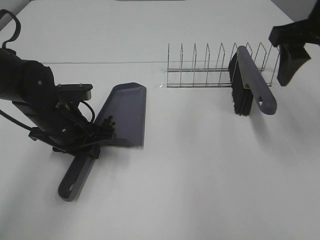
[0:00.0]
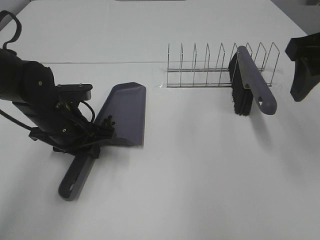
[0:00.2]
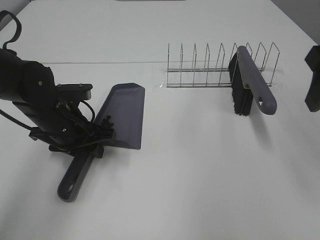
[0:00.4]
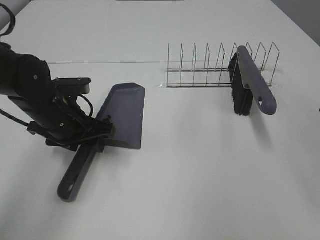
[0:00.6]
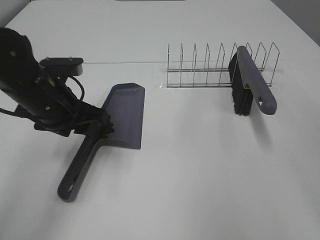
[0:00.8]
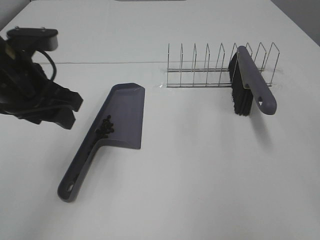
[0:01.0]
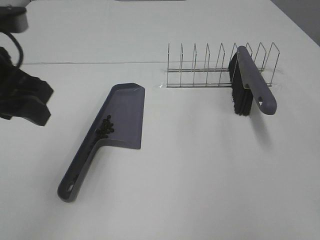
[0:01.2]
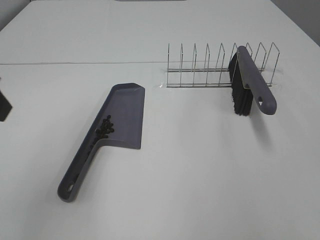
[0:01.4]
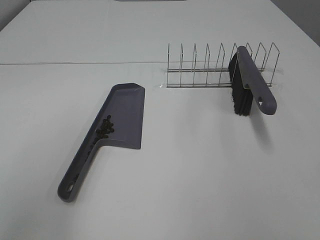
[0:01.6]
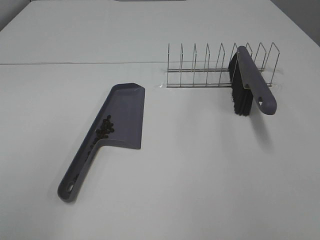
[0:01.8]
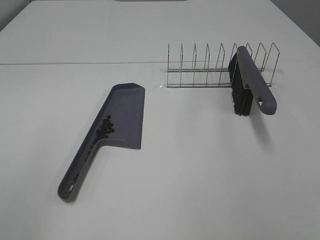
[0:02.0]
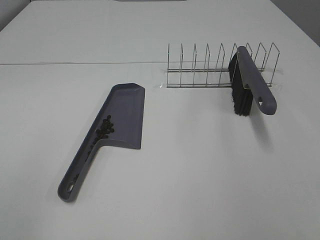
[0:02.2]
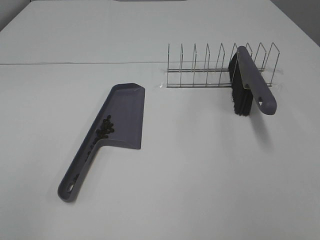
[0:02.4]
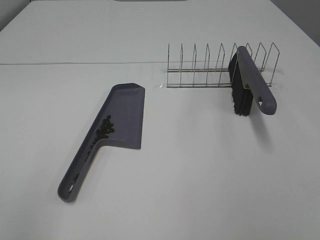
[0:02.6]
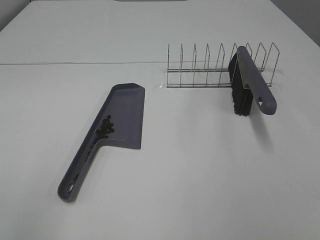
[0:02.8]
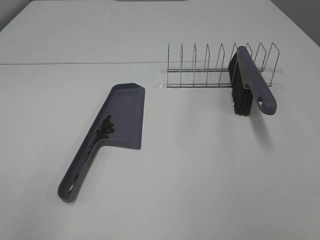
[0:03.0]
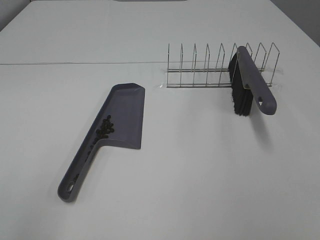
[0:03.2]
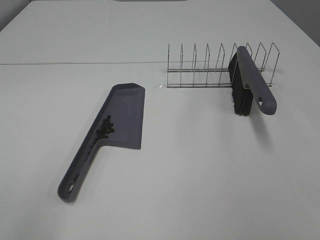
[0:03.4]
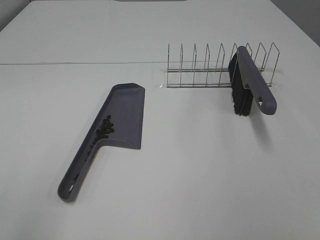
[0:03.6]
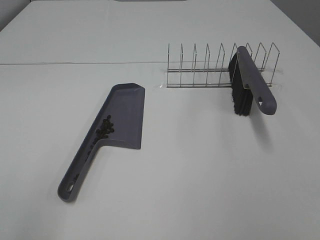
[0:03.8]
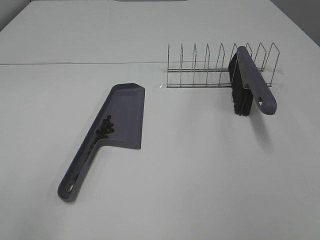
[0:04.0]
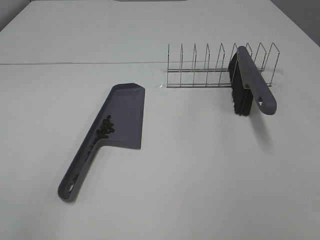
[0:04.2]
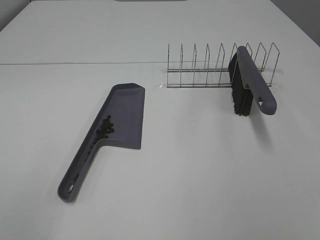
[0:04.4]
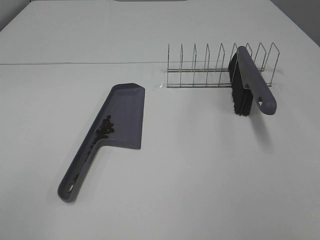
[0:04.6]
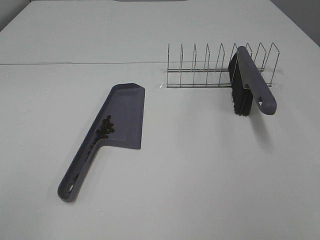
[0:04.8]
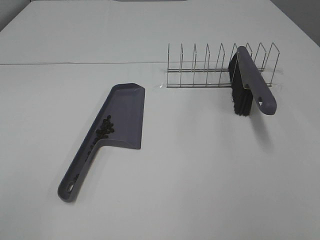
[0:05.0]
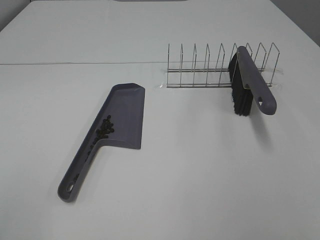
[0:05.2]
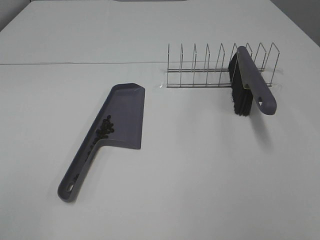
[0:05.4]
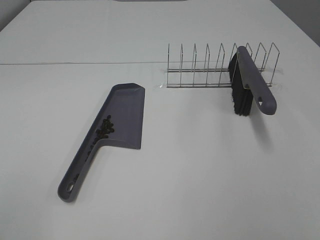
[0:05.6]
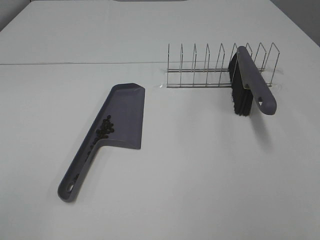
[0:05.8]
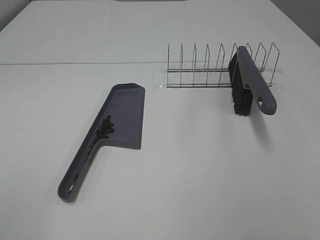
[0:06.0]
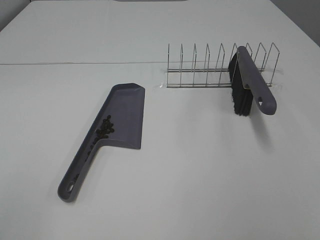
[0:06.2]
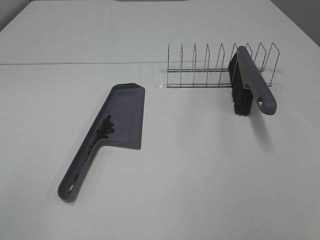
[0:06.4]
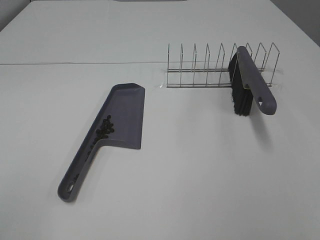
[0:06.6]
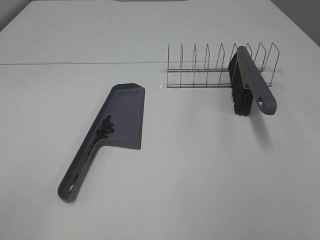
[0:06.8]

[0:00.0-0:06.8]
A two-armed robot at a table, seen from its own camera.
Task of the whole recording: Sweep Coffee Bean.
0.0 to 1.4 s: The left gripper goes about 25 cm upward and backward, and opens; the right gripper heads backward, covering roughly 25 cm.
5.4 to 6.8 s: Neither gripper changes place.

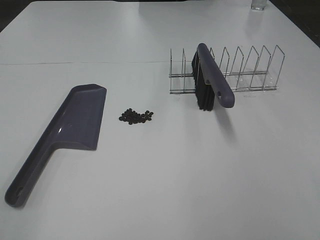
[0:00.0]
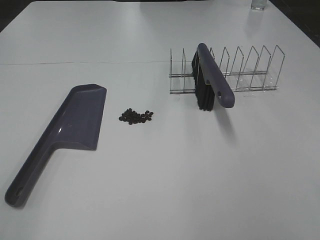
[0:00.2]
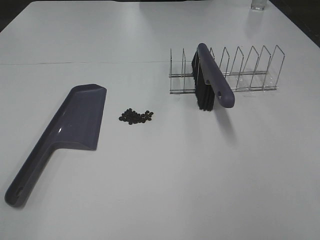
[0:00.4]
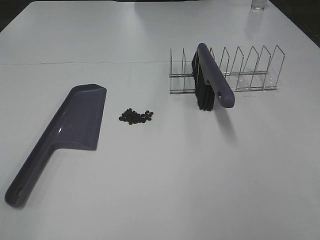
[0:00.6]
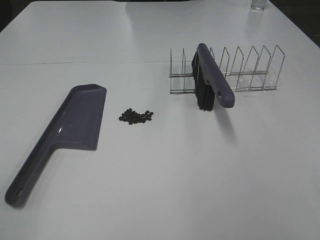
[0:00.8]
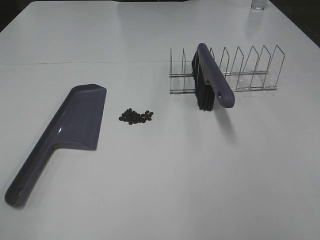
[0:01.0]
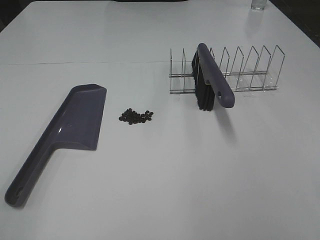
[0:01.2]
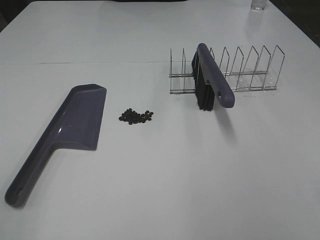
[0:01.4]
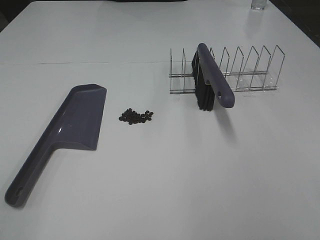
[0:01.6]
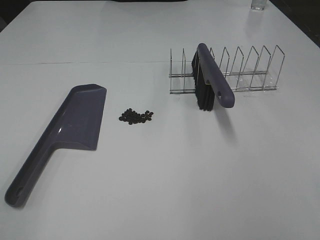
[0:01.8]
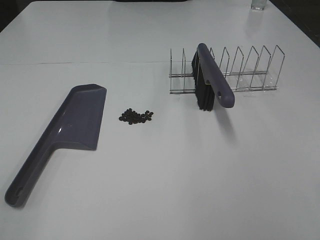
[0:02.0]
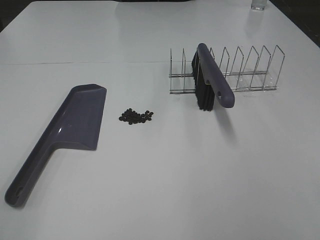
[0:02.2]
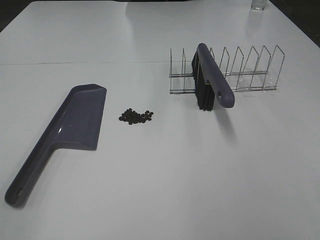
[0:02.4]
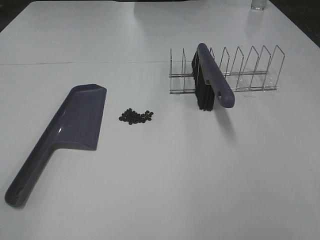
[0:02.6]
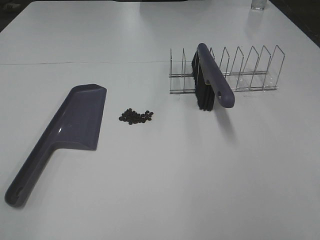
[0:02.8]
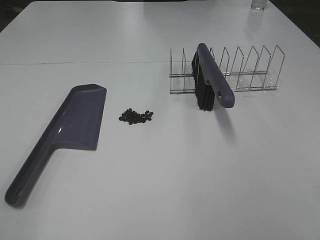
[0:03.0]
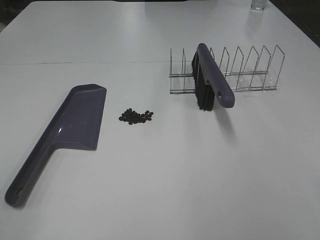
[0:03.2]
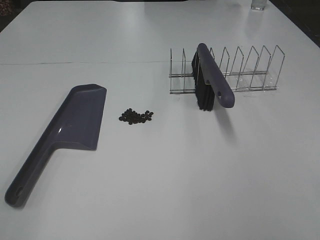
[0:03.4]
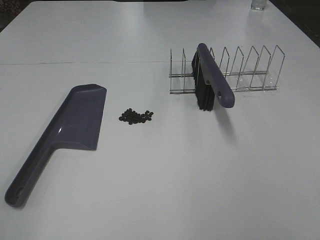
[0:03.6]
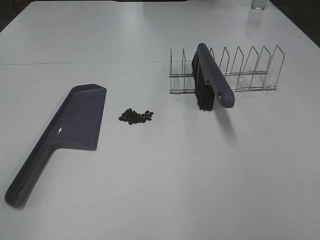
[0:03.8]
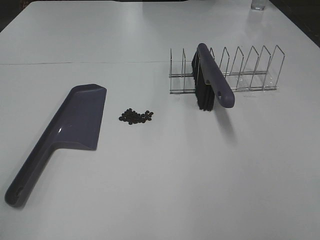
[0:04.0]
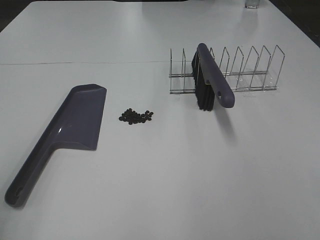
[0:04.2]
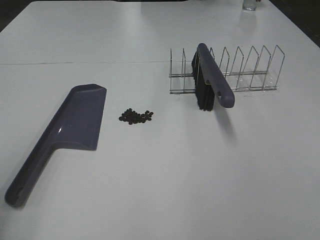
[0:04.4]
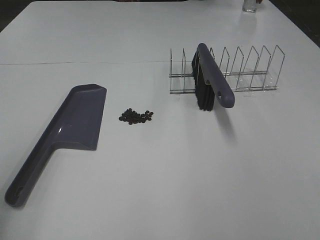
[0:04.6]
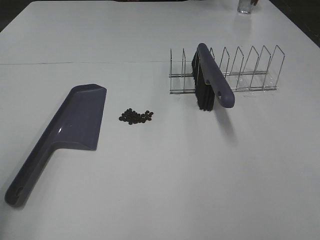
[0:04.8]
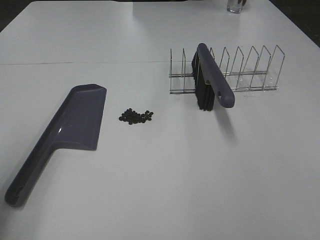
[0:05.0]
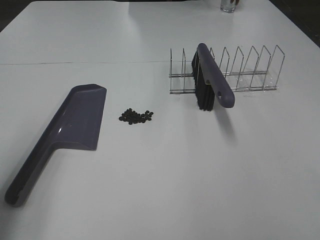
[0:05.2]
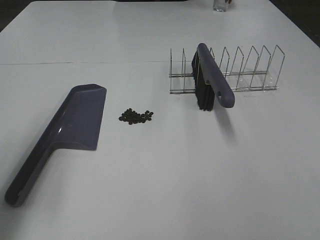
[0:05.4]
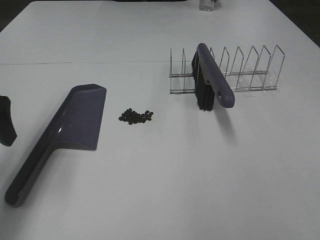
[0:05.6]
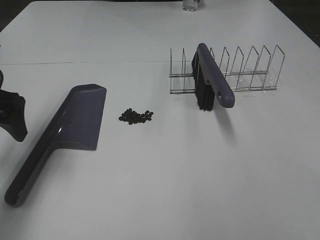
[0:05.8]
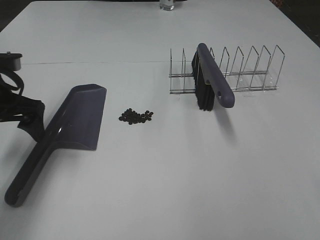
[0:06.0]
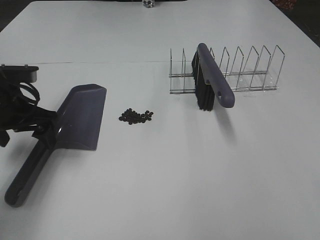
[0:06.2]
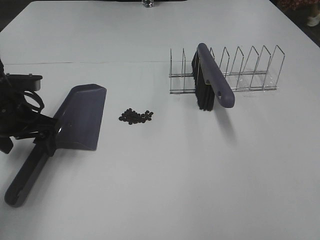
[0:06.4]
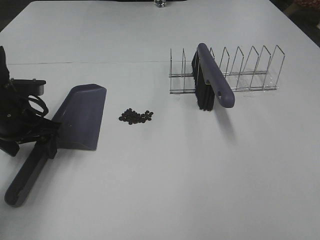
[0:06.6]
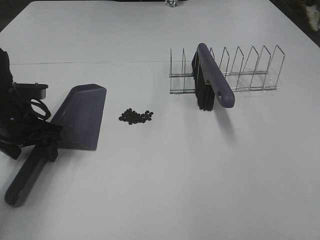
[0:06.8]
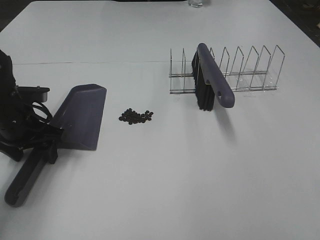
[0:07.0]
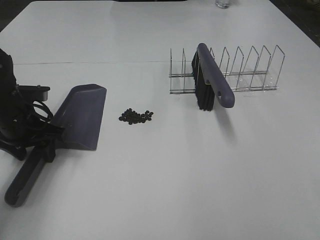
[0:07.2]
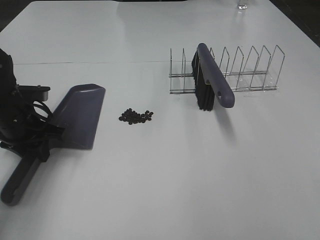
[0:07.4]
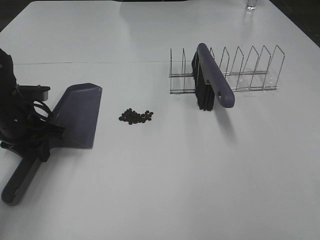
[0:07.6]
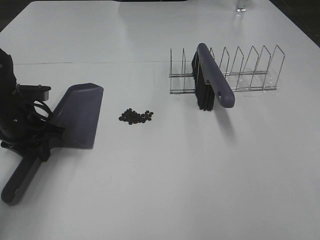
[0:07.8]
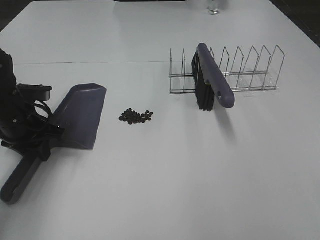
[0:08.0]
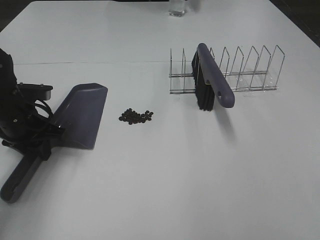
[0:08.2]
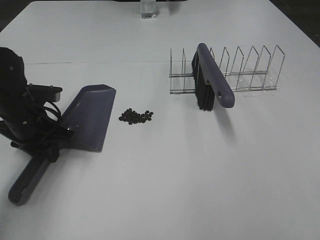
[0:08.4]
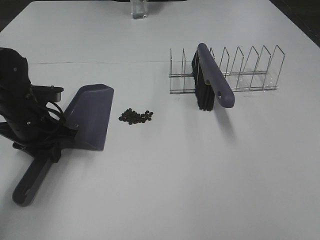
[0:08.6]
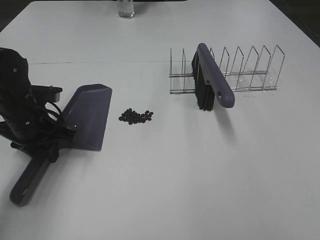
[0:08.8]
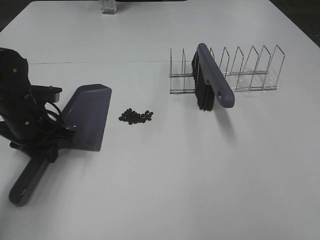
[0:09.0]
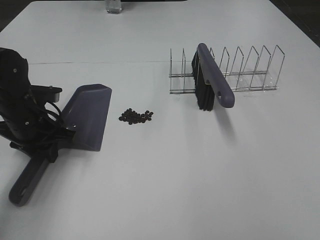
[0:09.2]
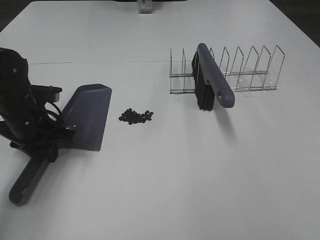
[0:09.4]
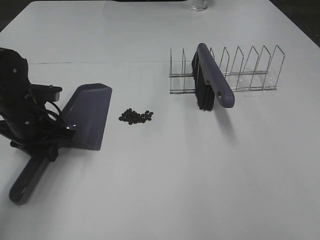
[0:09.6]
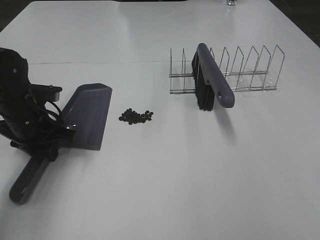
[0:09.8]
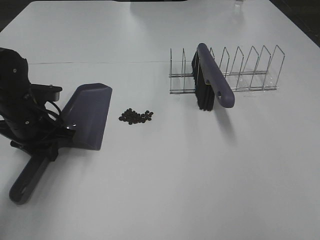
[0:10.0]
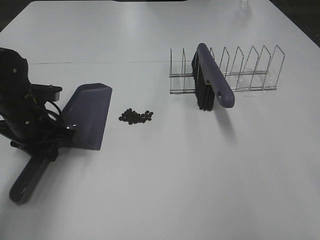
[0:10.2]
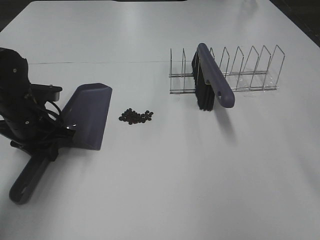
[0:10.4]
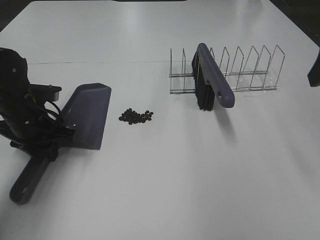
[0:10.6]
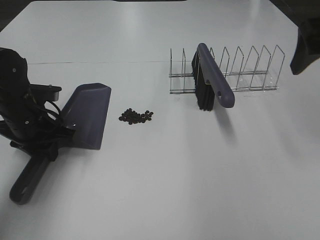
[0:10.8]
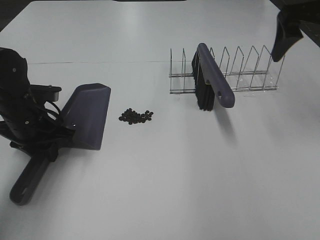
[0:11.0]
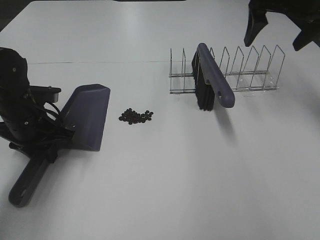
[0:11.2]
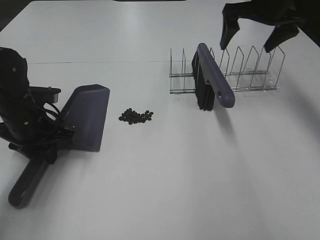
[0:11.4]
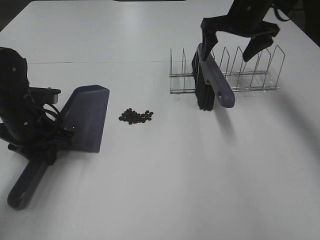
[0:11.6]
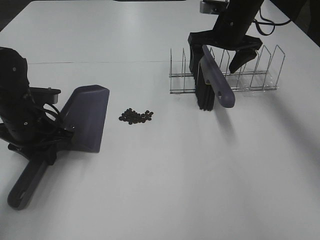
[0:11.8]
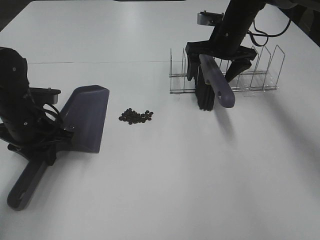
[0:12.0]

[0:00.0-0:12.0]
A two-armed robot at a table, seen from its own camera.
Task of the whole recording: Sweep Coffee Bean.
Step, 0.0 to 7.4 s: Left hand: grab the dustpan.
0.0 to 3.0 s: Neither gripper changes place.
4.4 to 6.0 s: The left gripper moves forward and downward, approximately 25 cm.
6.0 to 7.6 s: The left gripper travels downward by approximately 10 cm, and closes its fingers.
7.6 to 9.0 s: There are only small adjustments of the grippers.
9.0 to 10.4 s: The right gripper shifts about 20 cm forward.
10.4 to 12.0 s: The right gripper goes about 35 cm forward and downward.

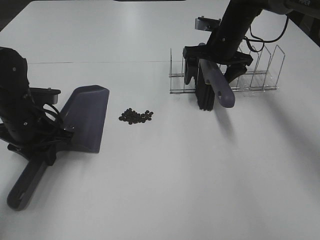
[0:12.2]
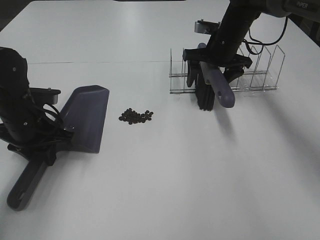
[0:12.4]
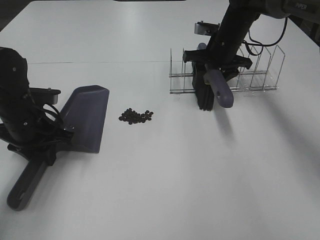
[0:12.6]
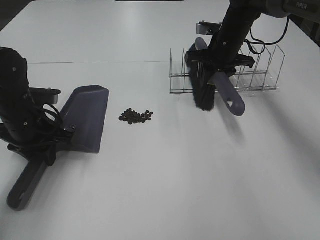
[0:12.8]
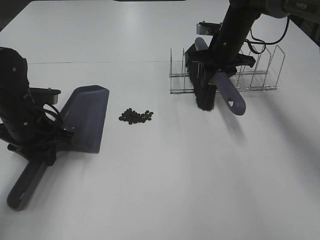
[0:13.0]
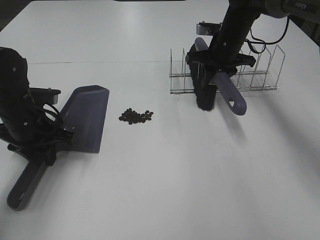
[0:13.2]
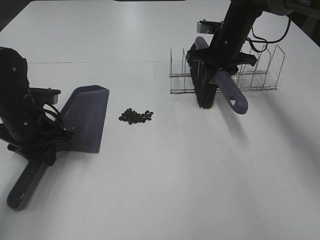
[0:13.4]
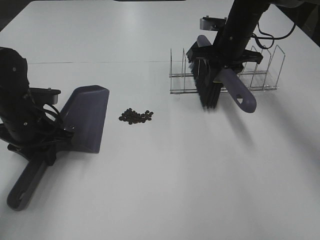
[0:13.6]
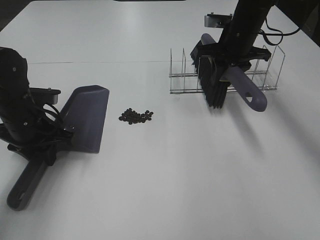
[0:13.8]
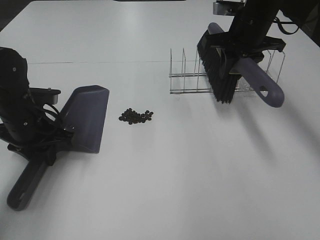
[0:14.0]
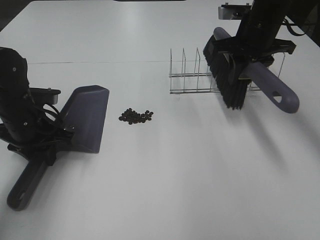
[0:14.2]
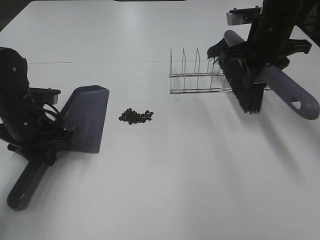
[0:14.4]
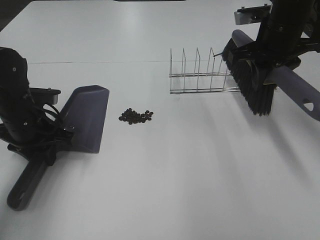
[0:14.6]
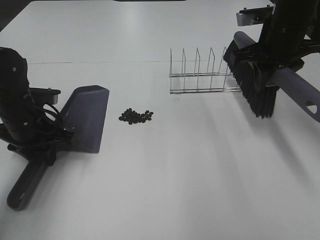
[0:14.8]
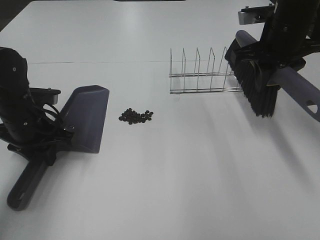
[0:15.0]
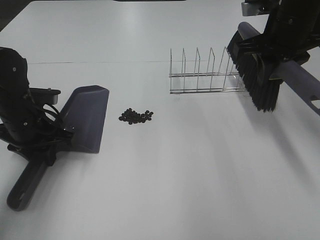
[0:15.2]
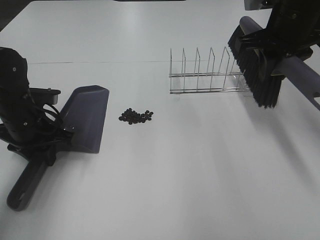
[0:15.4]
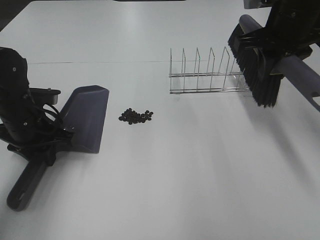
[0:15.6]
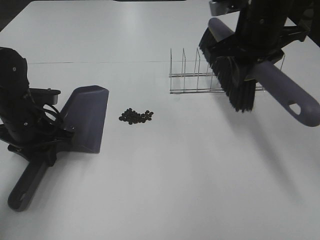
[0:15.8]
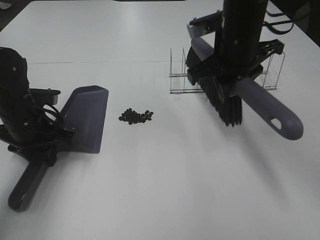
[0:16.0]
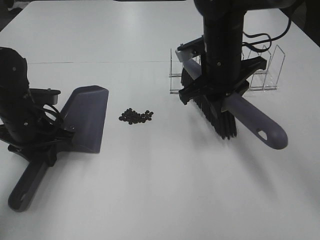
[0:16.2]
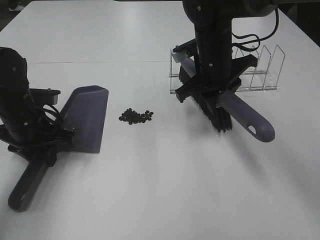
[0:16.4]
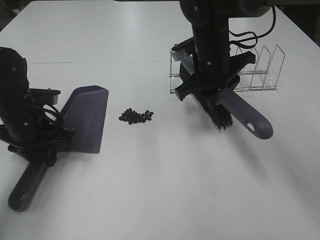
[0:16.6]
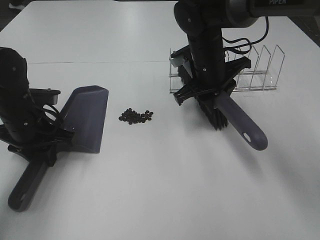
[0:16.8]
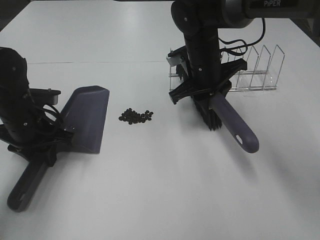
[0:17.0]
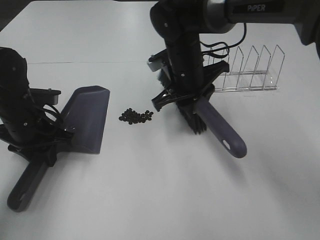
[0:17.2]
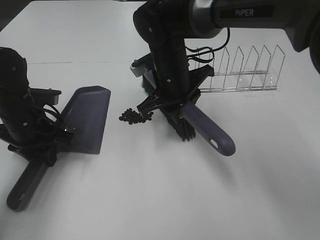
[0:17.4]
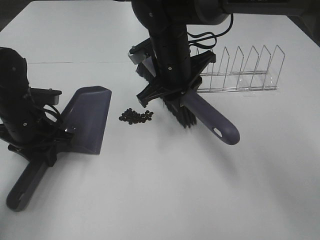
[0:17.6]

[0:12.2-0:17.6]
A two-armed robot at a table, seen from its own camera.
Task of the whole recording: Sweep Coffee Bean.
12.2 to 13.6 s: The right gripper closes up.
13.6 to 15.0 s: The right gripper heads backward and upward, covering some 10 cm.
15.0 to 16.2 s: The right gripper goes roughly 10 cm to the left and downward.
16.2 to 17.6 s: The right gripper goes about 10 cm to the left.
